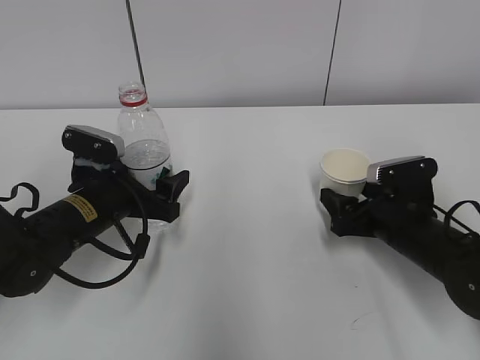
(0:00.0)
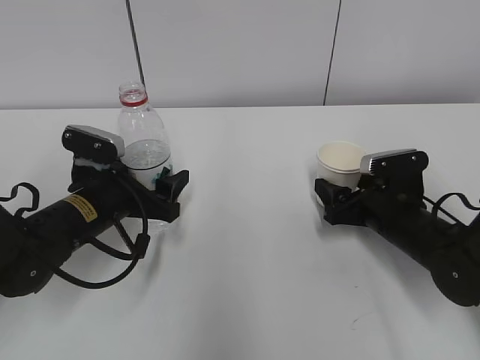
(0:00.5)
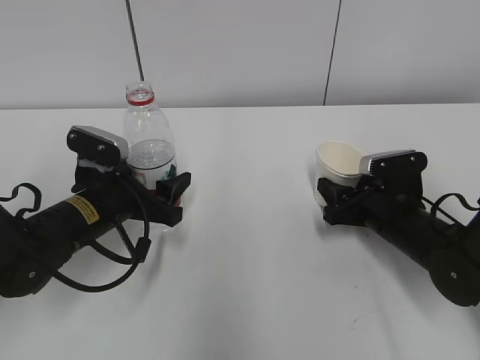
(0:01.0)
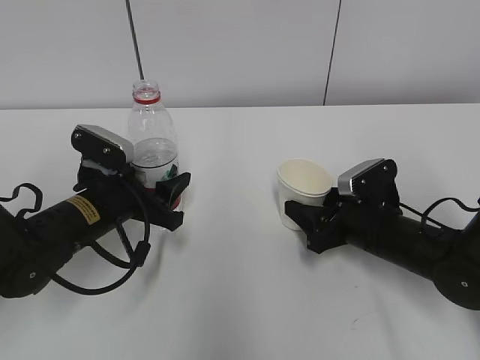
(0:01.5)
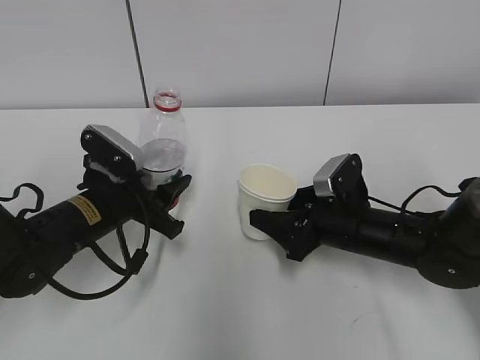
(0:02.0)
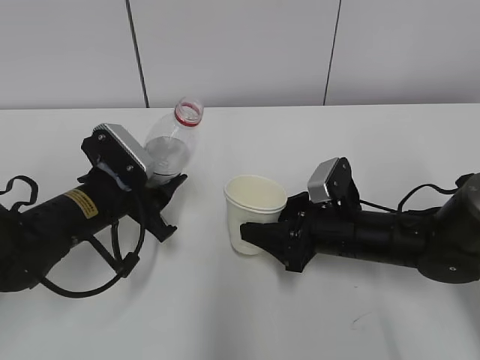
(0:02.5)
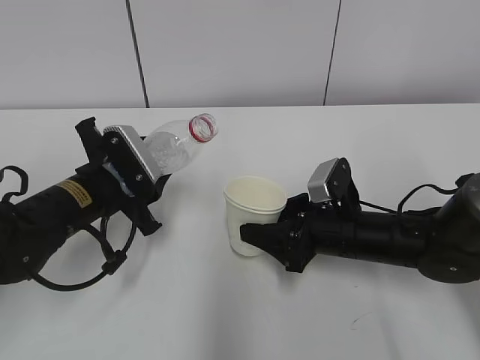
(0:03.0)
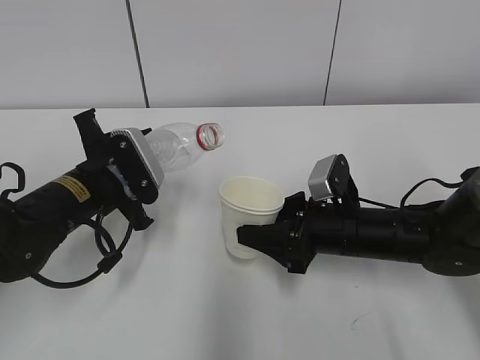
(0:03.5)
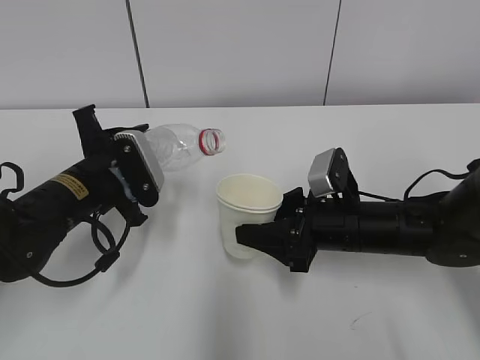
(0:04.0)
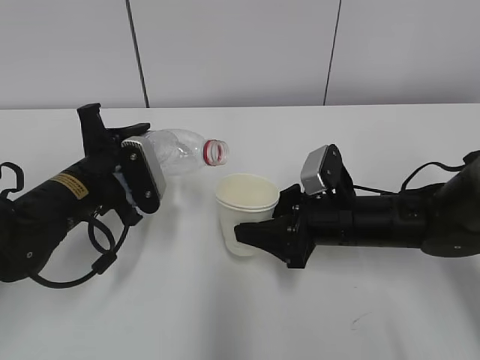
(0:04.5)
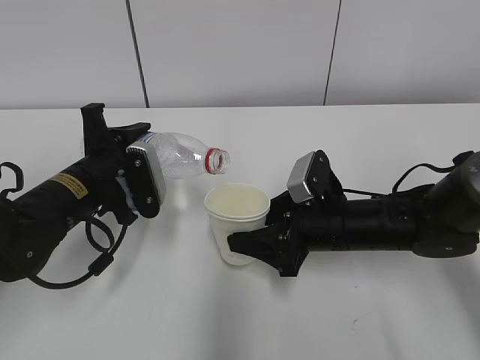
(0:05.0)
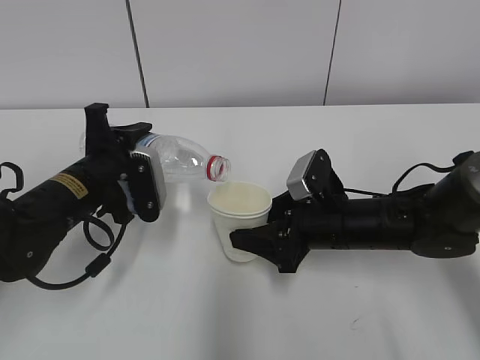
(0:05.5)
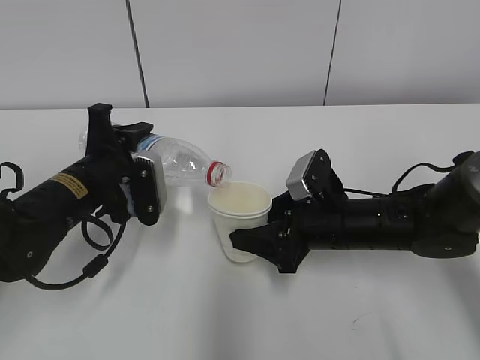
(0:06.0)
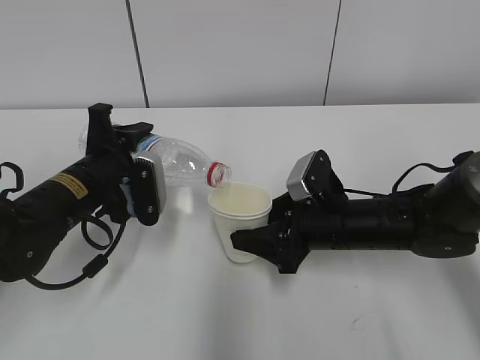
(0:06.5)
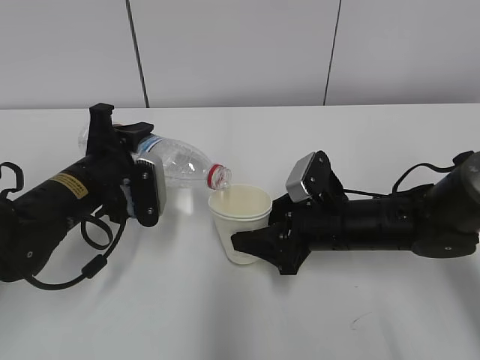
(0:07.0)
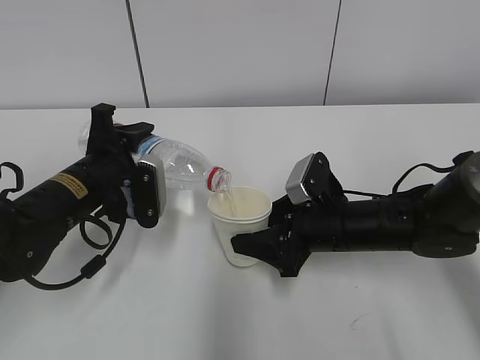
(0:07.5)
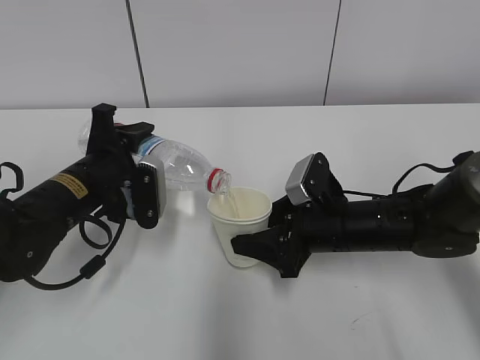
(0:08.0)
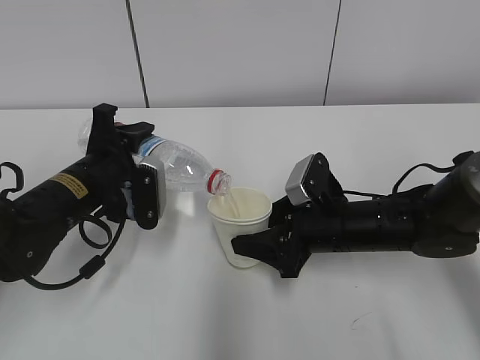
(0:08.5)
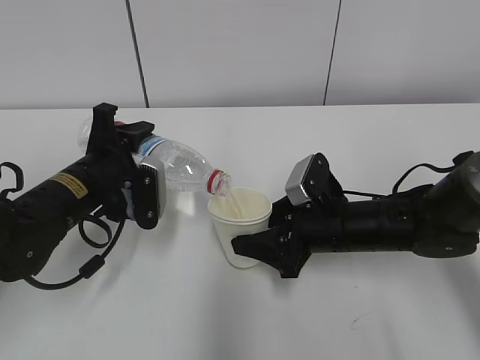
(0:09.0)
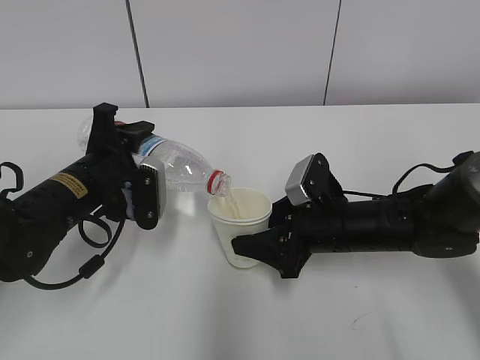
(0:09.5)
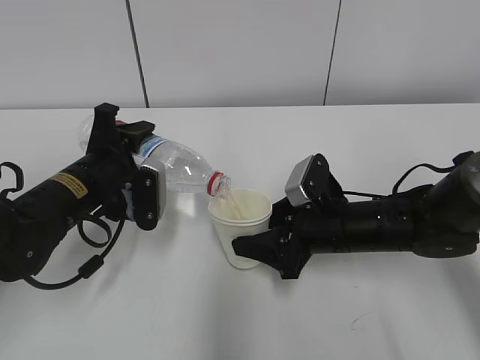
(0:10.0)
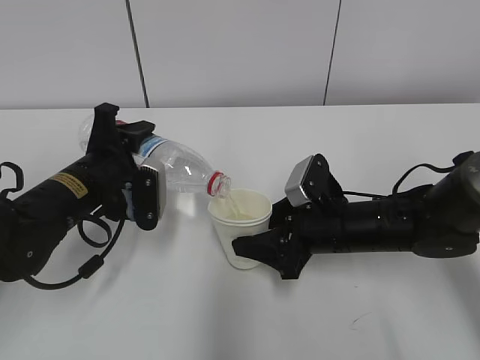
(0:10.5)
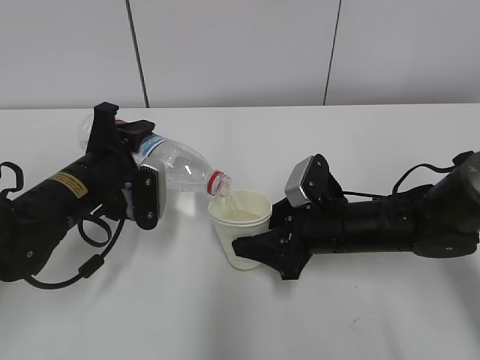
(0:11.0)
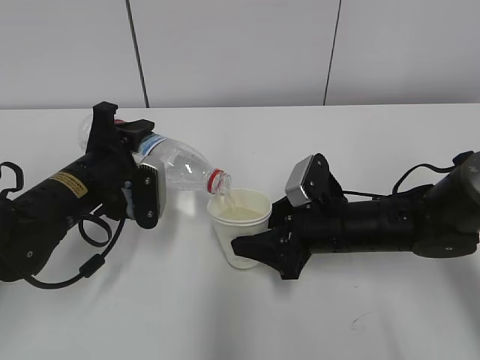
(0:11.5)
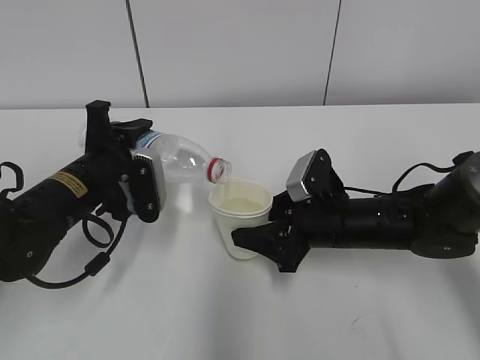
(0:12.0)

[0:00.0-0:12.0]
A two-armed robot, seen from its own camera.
Step, 0:00.5 to 0:04.0: Lift the paper cup with the right hand.
Step, 0:04.5 to 0:08.5: Fill water with the right hand.
0:00.0 to 0:02.0: The right gripper goes about 5 cm to the left, and closes its fingers. The left gripper closes its fingers.
0:04.0 to 0:06.0: The grippers move only a little.
0:06.0 to 0:08.0: Both grippers stay put.
0:08.0 to 0:10.0: Both grippers stay about where they are.
0:10.0 to 0:12.0: The grippers stay close to where they were, moving slightly.

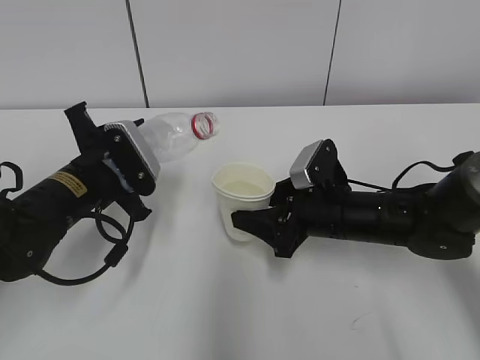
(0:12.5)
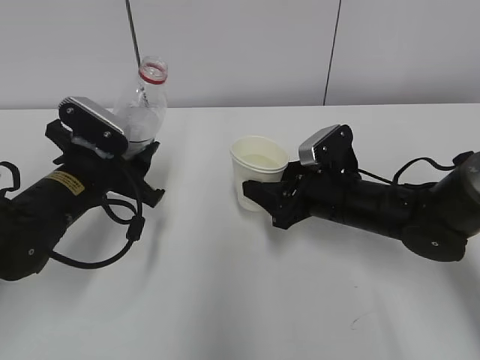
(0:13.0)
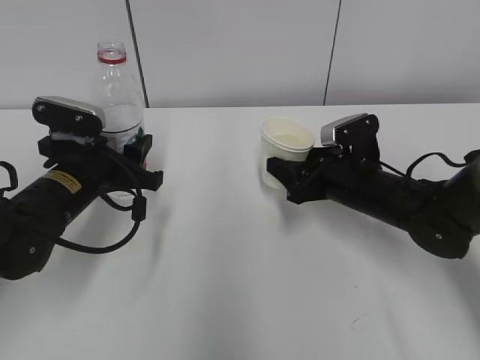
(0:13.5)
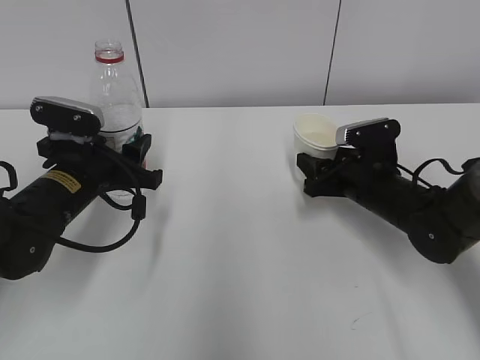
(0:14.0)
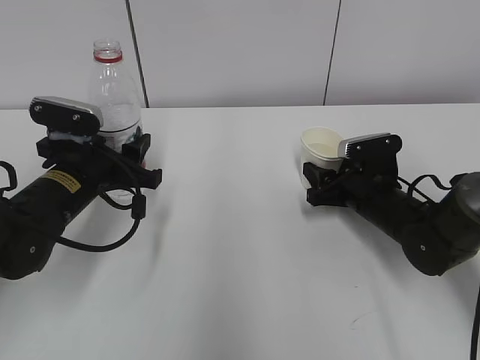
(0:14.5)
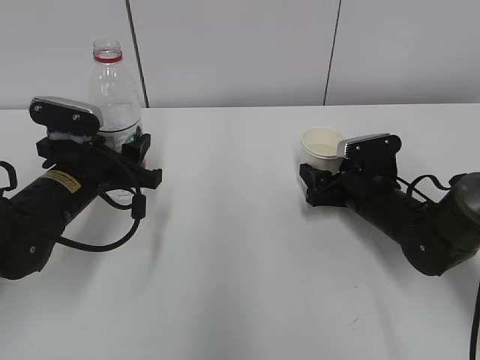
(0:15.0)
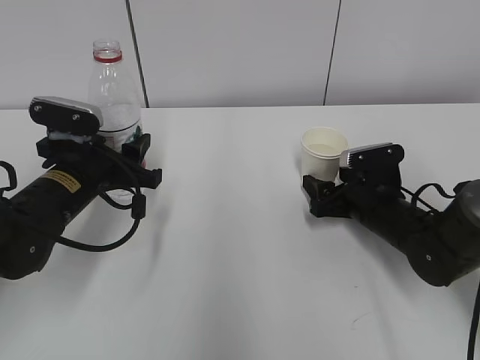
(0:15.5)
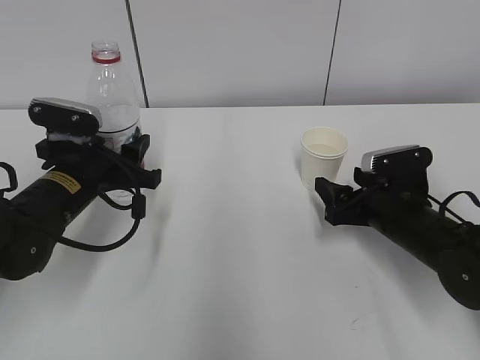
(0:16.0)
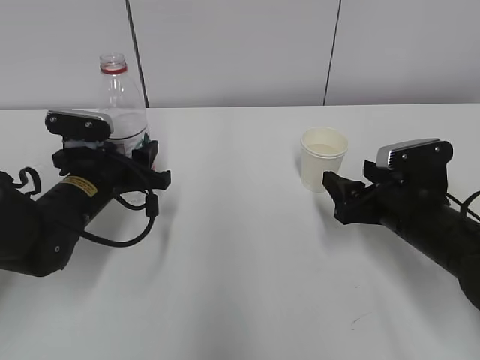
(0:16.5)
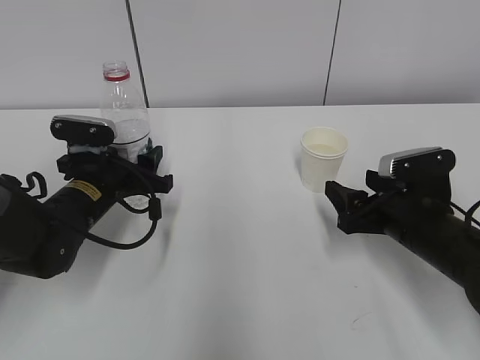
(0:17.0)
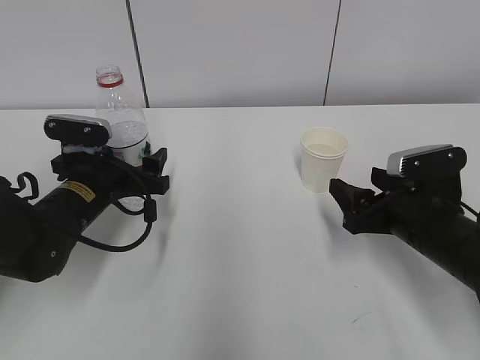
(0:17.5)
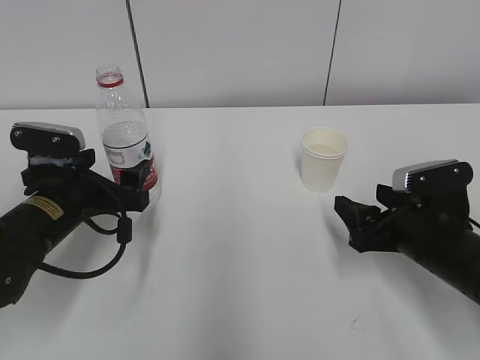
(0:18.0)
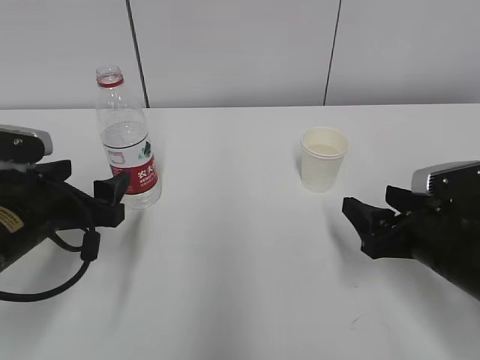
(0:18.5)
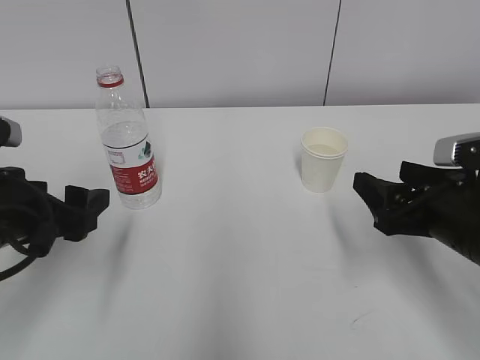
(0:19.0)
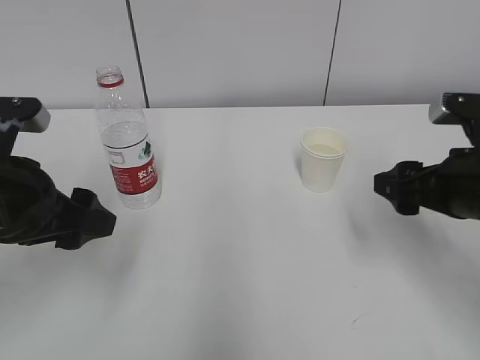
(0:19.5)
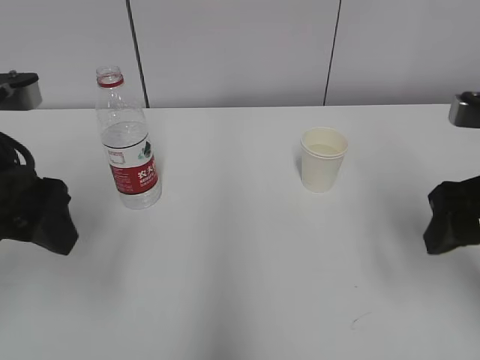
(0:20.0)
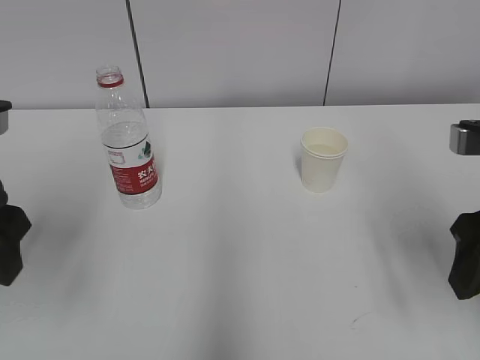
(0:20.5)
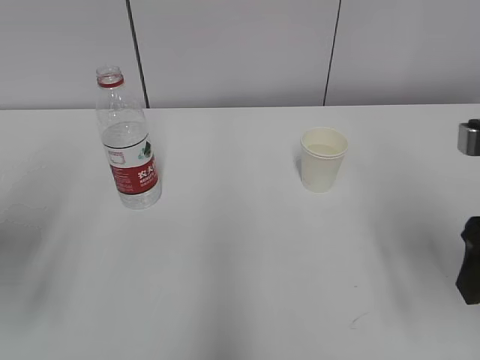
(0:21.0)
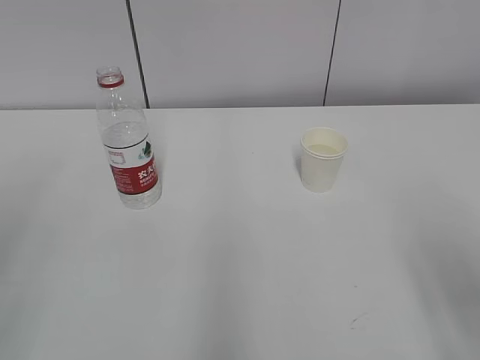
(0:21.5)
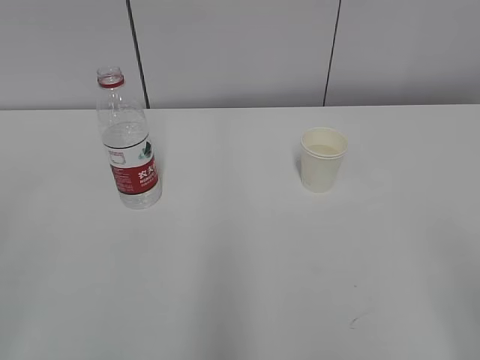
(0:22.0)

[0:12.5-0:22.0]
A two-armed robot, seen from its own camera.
0:12.5 to 0:14.5: The right gripper travels to the right by approximately 5 cm.
0:14.5 to 0:16.5: The right gripper shifts approximately 5 cm backward, and opens.
0:16.5 to 0:18.0: The left gripper changes place by approximately 5 cm, and opens.
0:18.0 to 0:20.0: The right gripper travels upward by roughly 15 cm. Meanwhile the left gripper shifts some 15 cm upward and backward.
0:20.0 to 0:22.0: The left gripper heads backward and to the left, covering roughly 25 cm, while the right gripper heads backward, covering about 20 cm.
